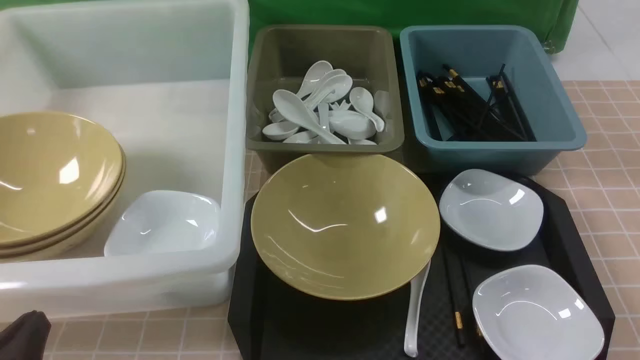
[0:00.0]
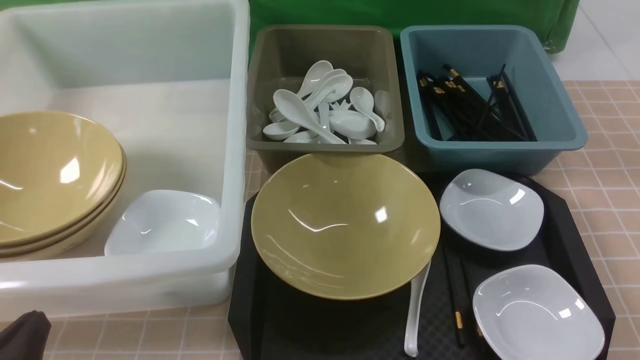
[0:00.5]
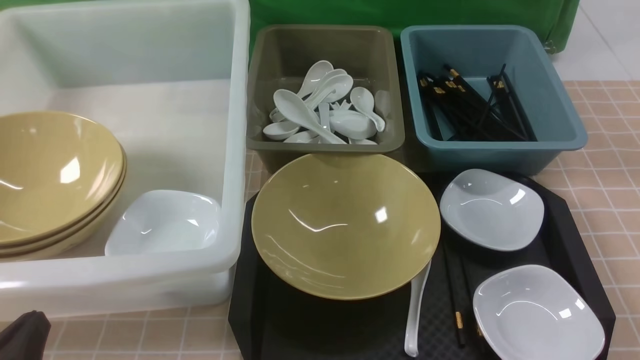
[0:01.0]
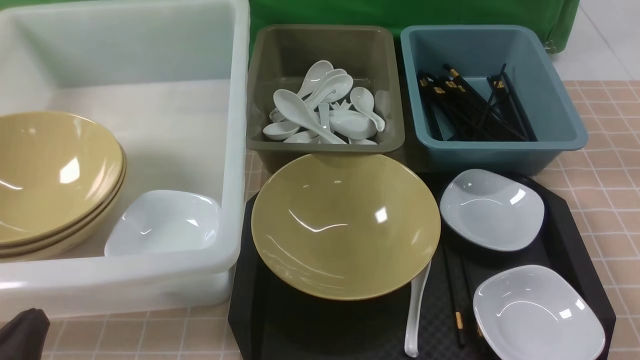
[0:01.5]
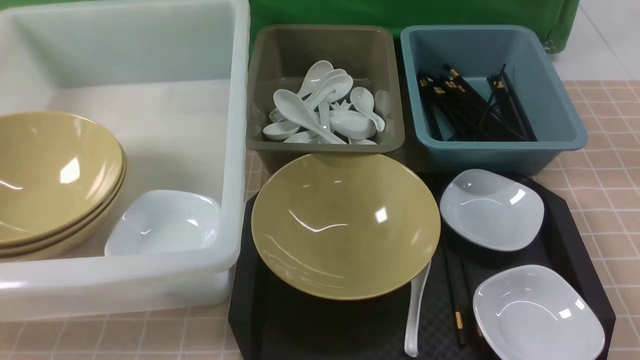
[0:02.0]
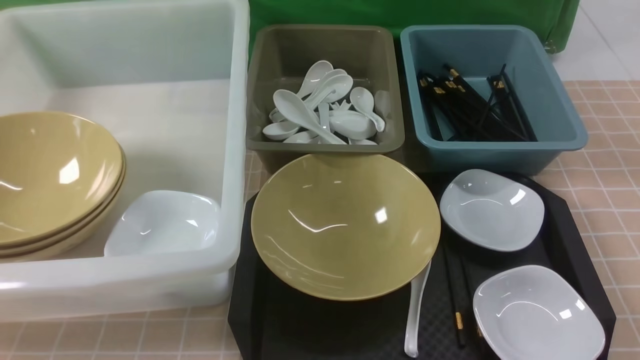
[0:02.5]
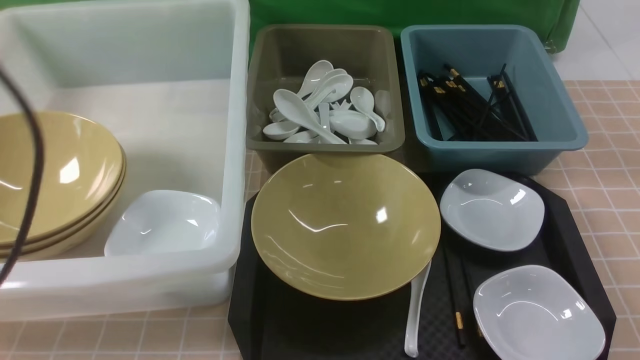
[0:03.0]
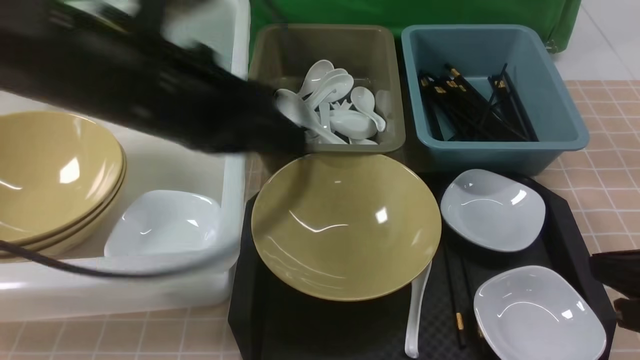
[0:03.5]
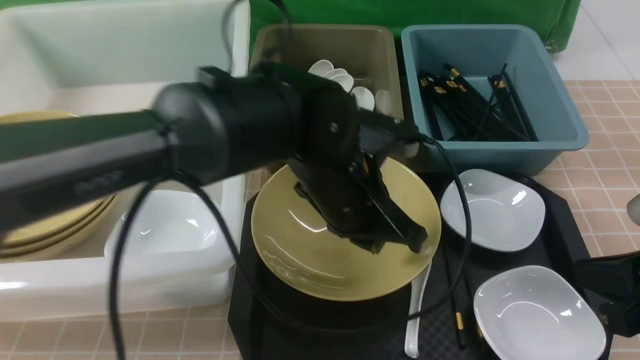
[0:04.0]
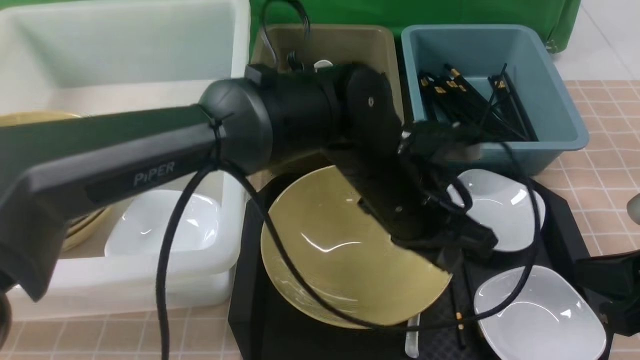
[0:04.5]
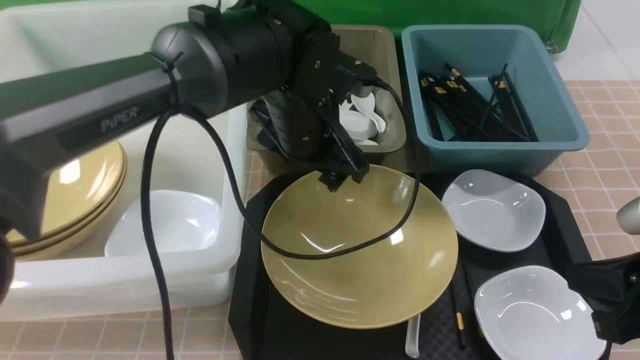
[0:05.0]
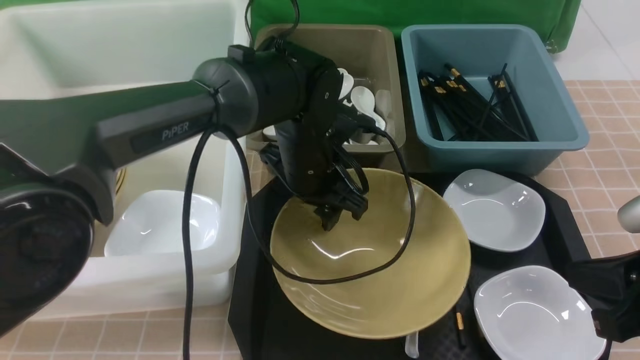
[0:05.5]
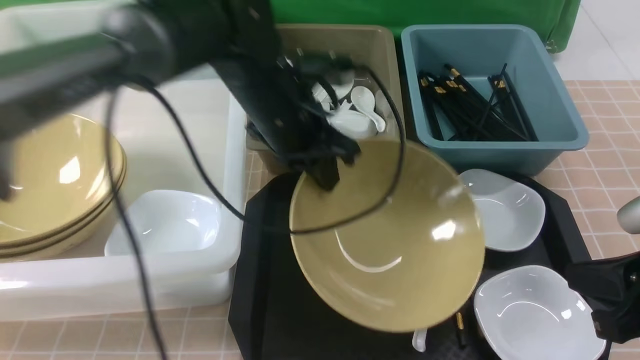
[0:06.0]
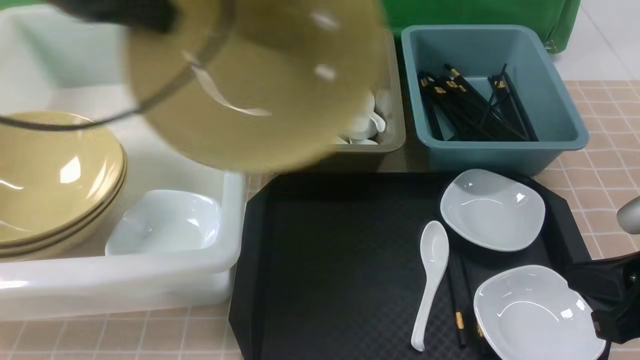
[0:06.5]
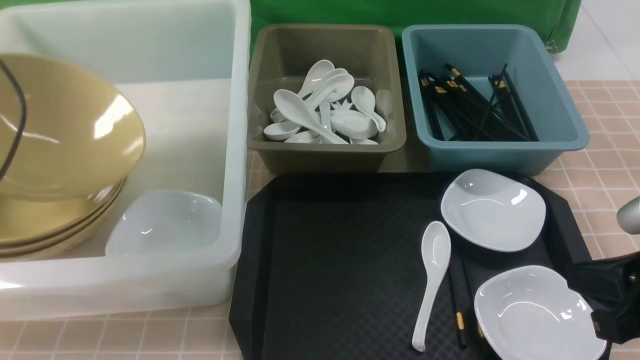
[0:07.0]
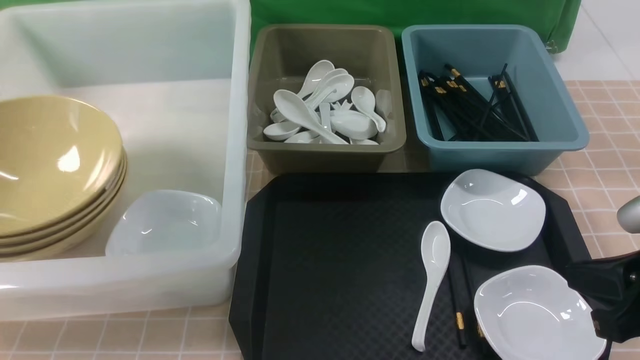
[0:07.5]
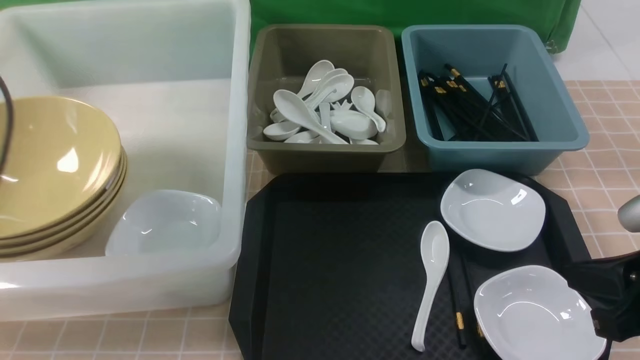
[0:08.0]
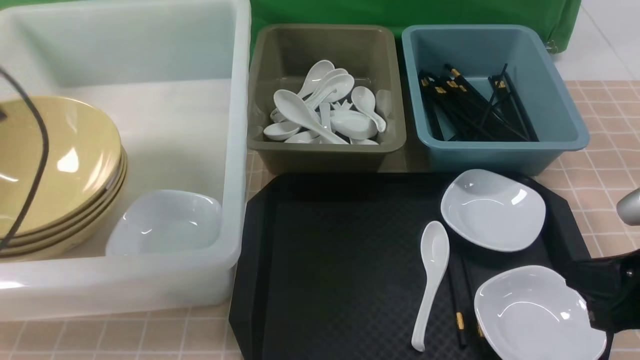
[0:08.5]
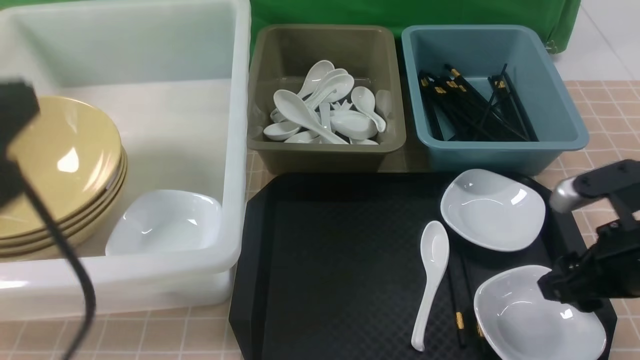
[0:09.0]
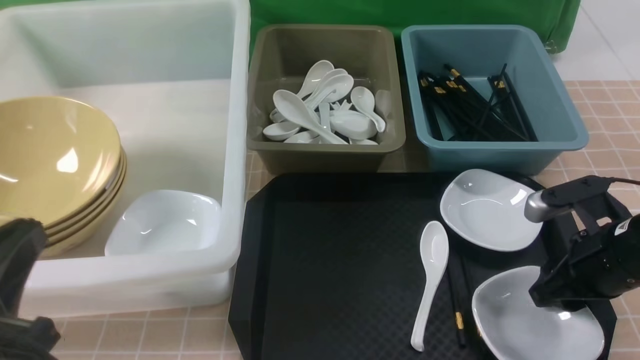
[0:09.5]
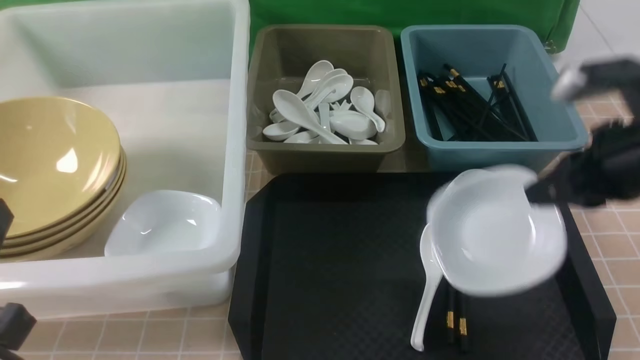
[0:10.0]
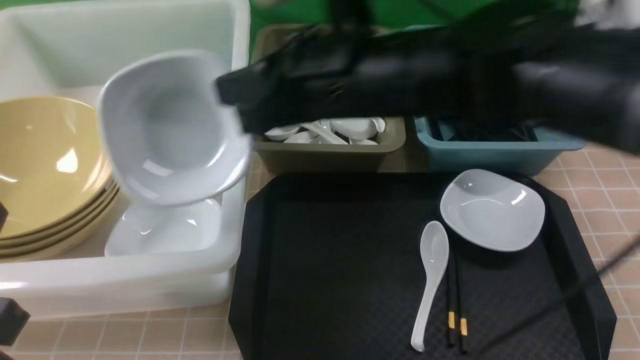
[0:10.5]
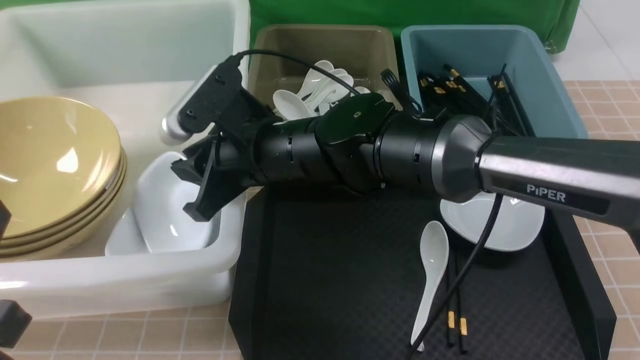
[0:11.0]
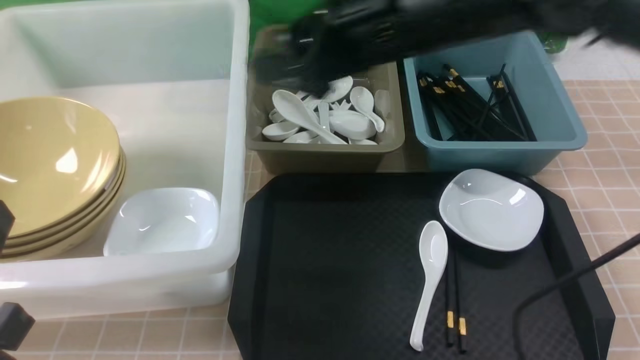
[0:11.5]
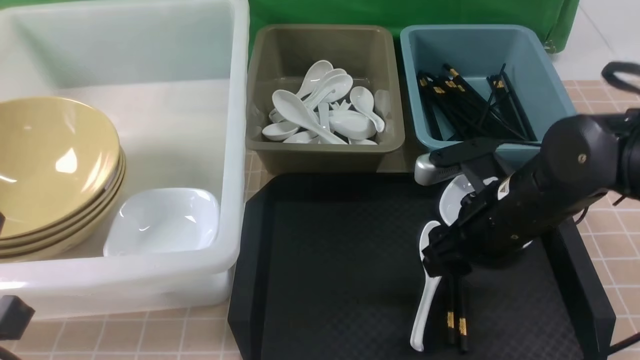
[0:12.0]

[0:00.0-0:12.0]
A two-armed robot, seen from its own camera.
Task of the whole recording: on brown table put chopsticks spoon bowls plates into blue grey white boxes.
Step, 0:00.0 to 0:05.5: use the left arm to grab the yellow noodle bowl on the left.
Step, 0:06.0 to 0:07.5: use the left arm to put the noodle bowl into the large storage box on the left.
Step, 0:08.0 to 0:09.5: use the right arm to grab the plate.
Step, 0:10.0 to 0:11.0: use the right arm to put the plate into the large storage box on the left.
0:02.0 to 0:04.0: The right gripper shifts some 10 cm forward, while the left gripper is displaced to the right and forward by roughly 35 cm.
0:04.0 to 0:06.0: The left gripper moves forward, about 10 cm, and opens, then closes once more.
0:06.0 to 0:08.0: The left gripper is displaced to the left by some 30 cm, and opens its fingers.
0:08.0 to 0:10.0: The left gripper travels backward and to the right by about 20 cm, and closes. Meanwhile the right gripper travels forward by some 10 cm, and opens and closes again.
0:10.0 to 0:12.0: The right gripper travels to the left and back again, some 30 cm each way, and opens.

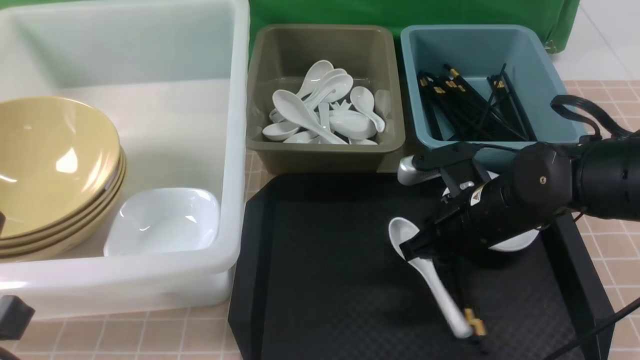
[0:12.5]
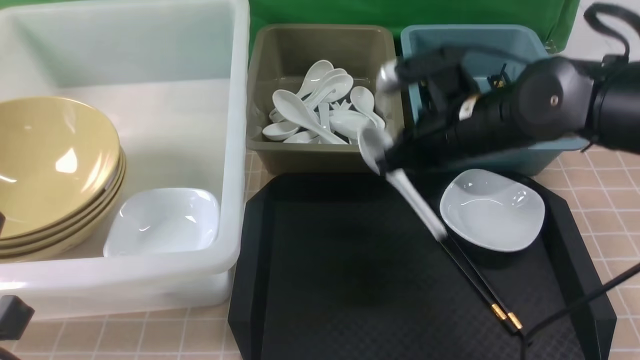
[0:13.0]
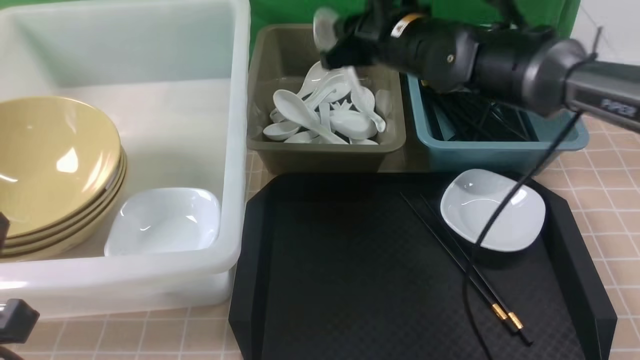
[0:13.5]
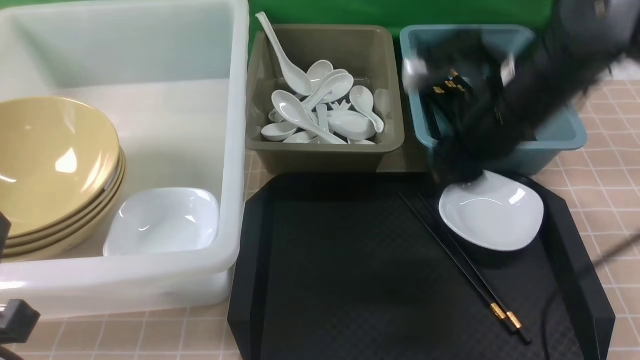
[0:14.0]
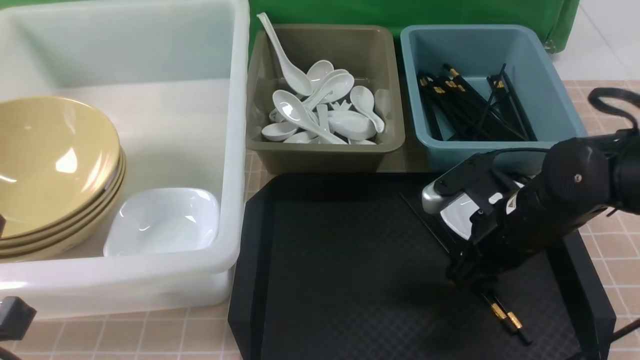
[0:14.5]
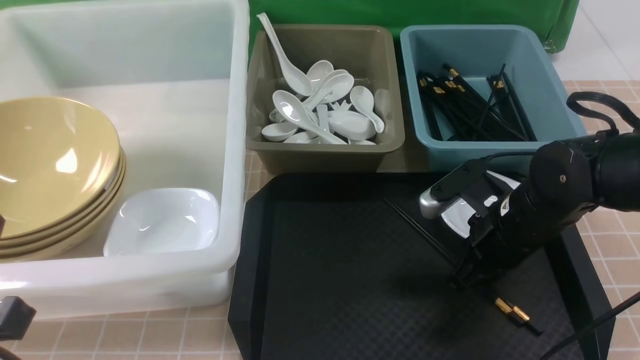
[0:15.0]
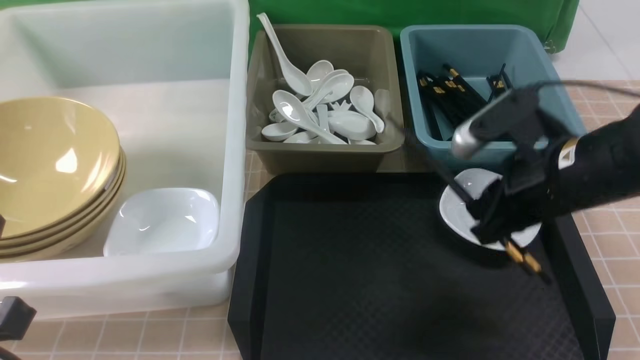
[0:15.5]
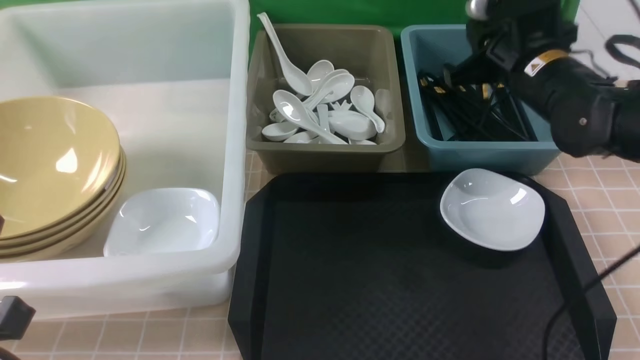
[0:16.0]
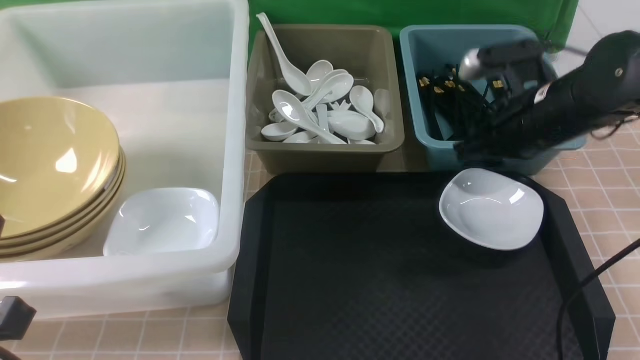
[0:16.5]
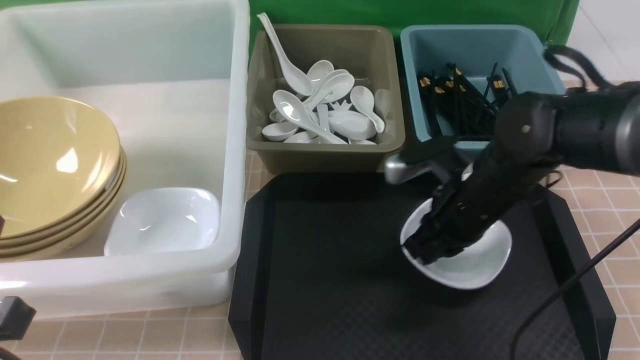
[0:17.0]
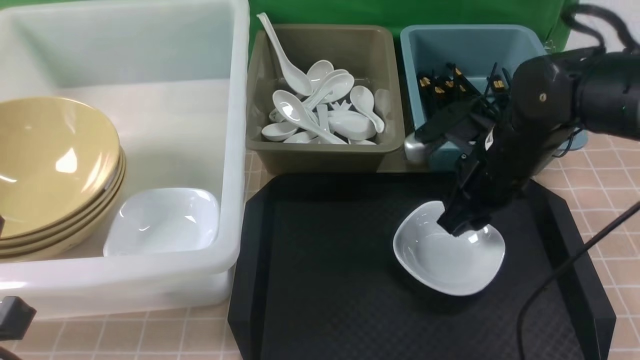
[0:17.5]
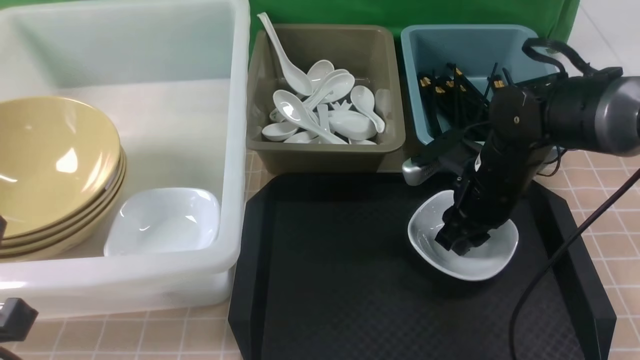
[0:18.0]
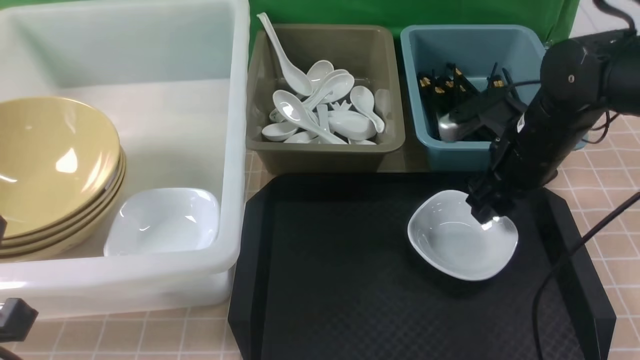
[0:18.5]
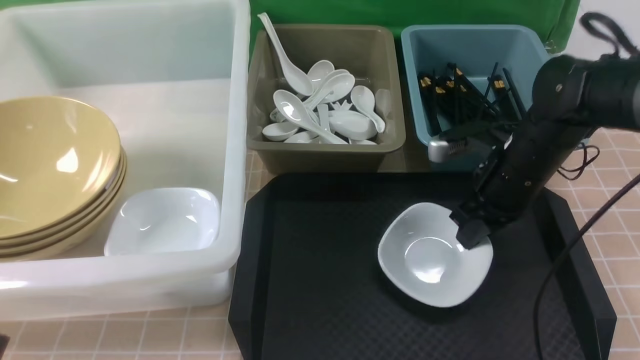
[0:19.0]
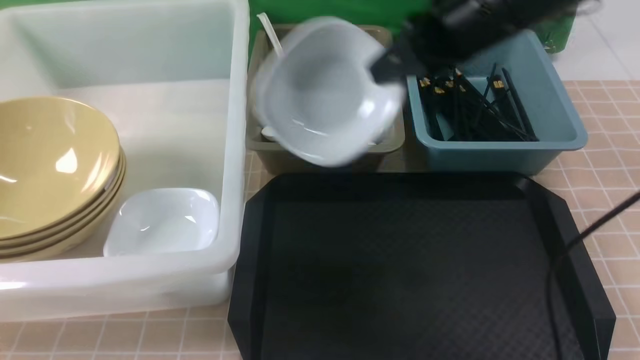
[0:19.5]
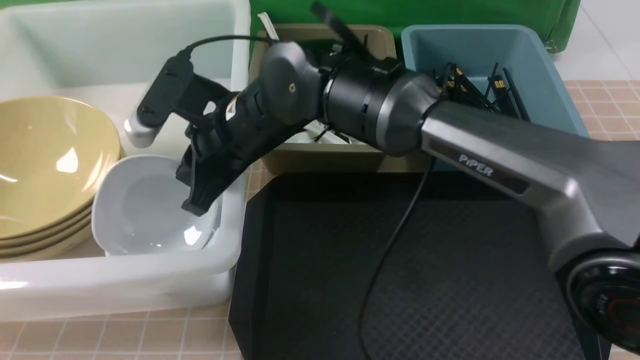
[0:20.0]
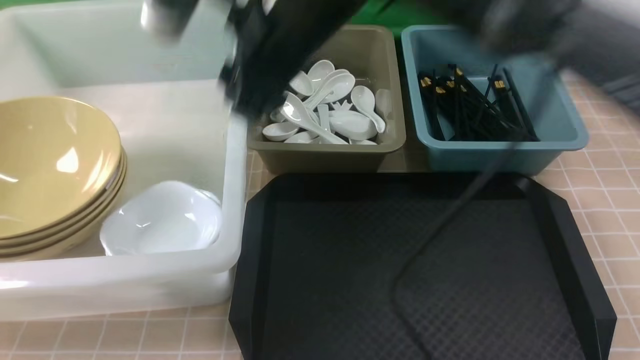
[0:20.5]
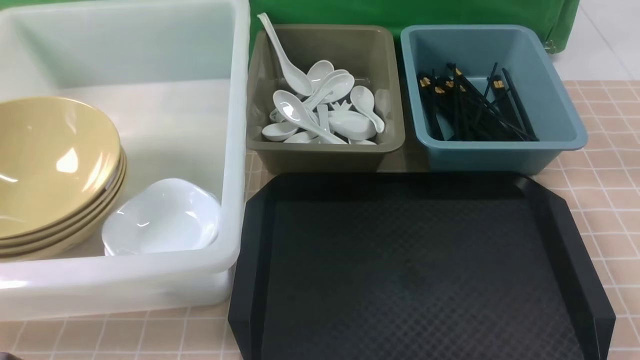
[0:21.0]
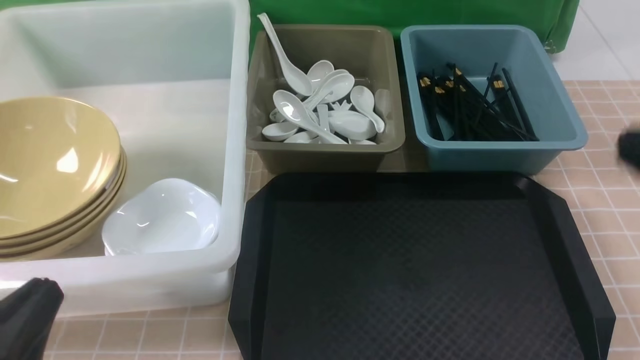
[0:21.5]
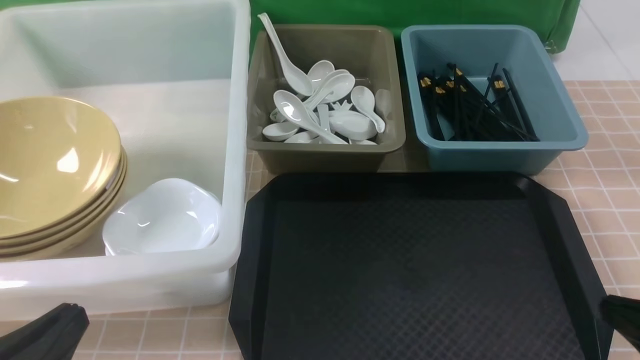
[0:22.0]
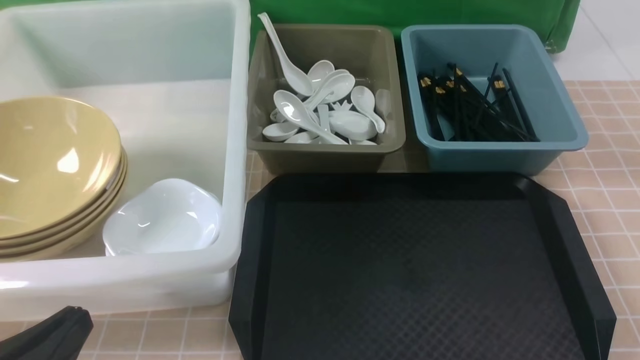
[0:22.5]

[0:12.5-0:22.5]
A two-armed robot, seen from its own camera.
Task of the whole recording: on brown table put chopsticks spoon bowls plates into blue grey white boxes.
Step, 0:13.0 to 0:13.5: use the right arm to put the soup spoon into the small storage box in the middle.
Step, 0:14.0 to 0:15.0: use the right arm to grab the chopsticks.
Step, 0:15.5 to 0:16.0: use the right arm to put the chopsticks into the small storage box on the right.
Step, 0:16.5 to 0:19.0: use the right arm to grab the plate.
Step, 0:19.5 to 0:20.0: use the right arm to put the plate into the large storage box on the left.
0:12.5 to 0:14.5: The right gripper moves about 15 cm forward and comes back, and opens its fingers.
0:14.5 to 0:16.5: The right gripper shifts roughly 10 cm forward.
0:16.5 to 0:18.5: The right gripper closes, then opens again.
0:18.5 to 0:20.5: The right gripper shifts some 25 cm to the left and upward, and closes, then reopens.
0:20.5 to 0:22.5: The right gripper goes roughly 50 cm to the right, backward and downward, and closes. The left gripper changes place by roughly 5 cm.
